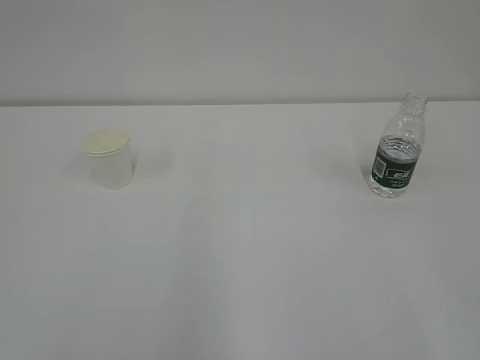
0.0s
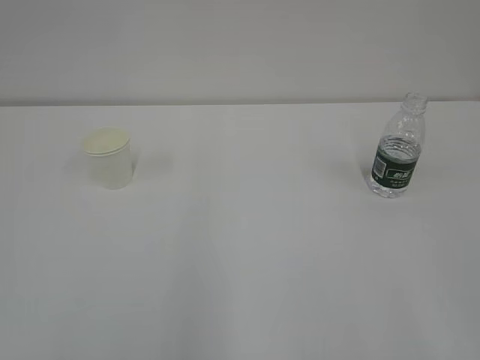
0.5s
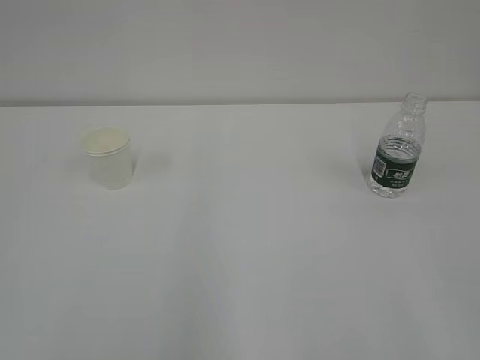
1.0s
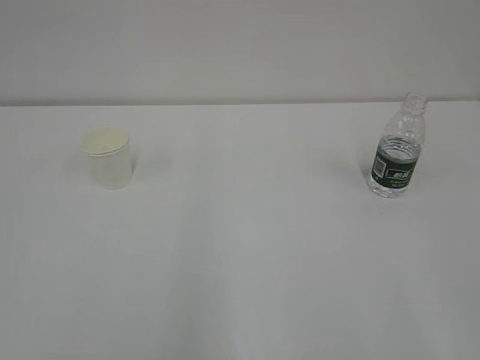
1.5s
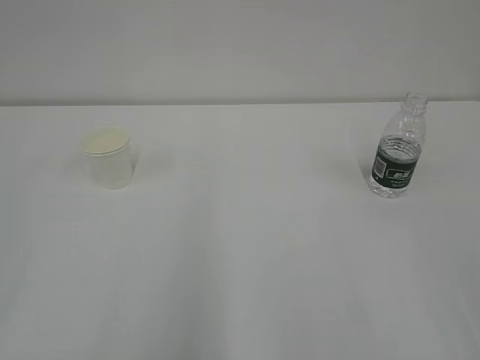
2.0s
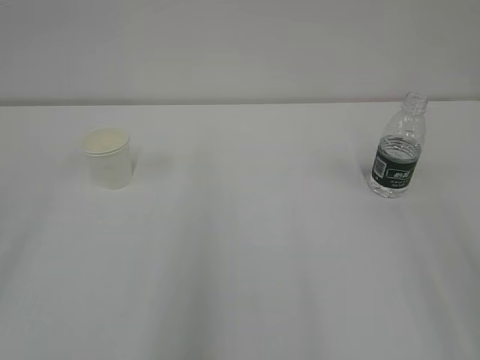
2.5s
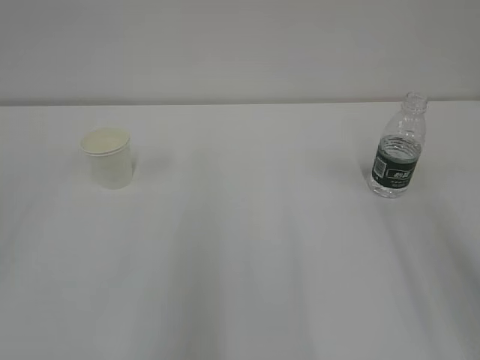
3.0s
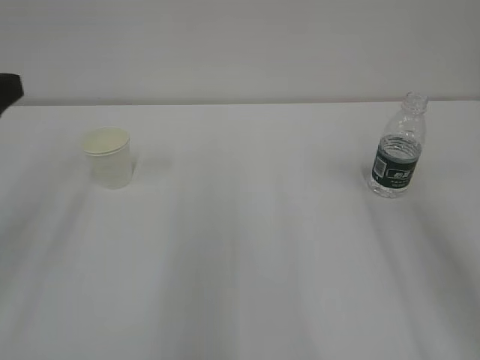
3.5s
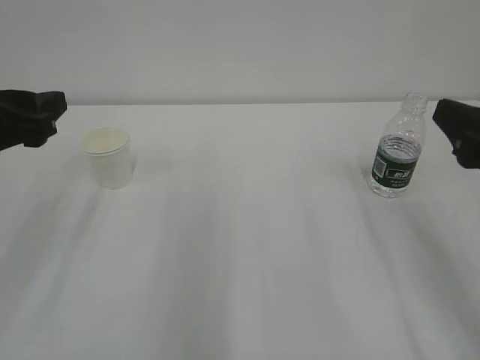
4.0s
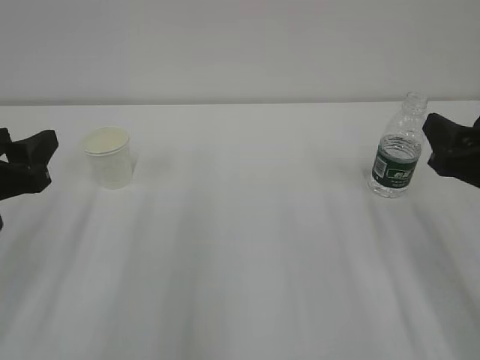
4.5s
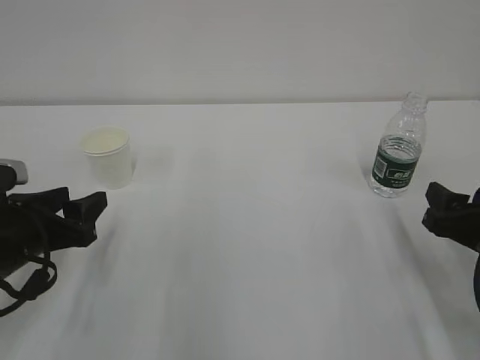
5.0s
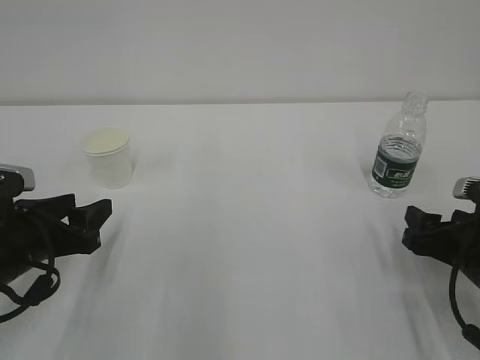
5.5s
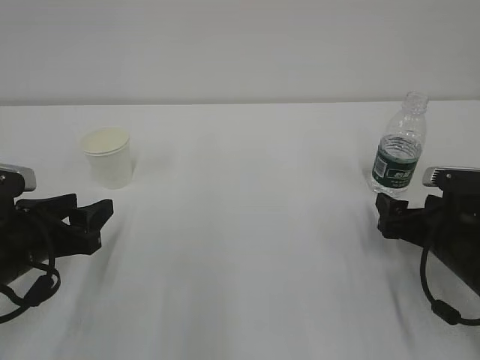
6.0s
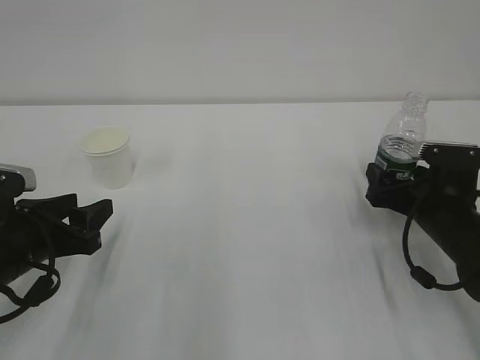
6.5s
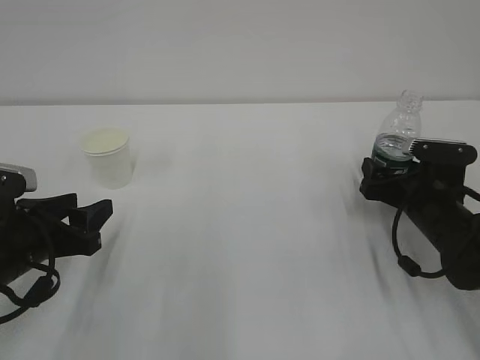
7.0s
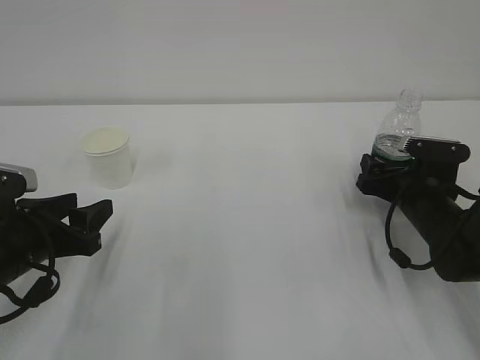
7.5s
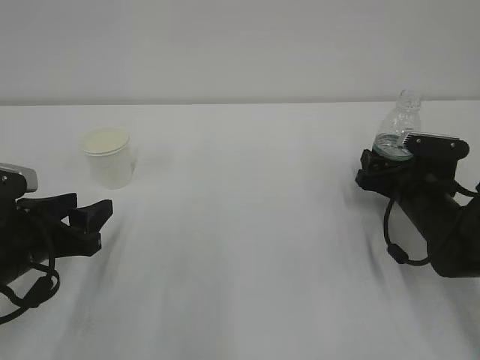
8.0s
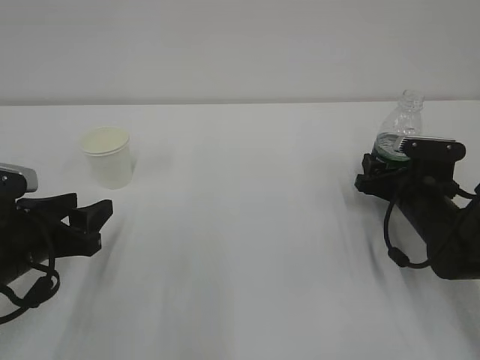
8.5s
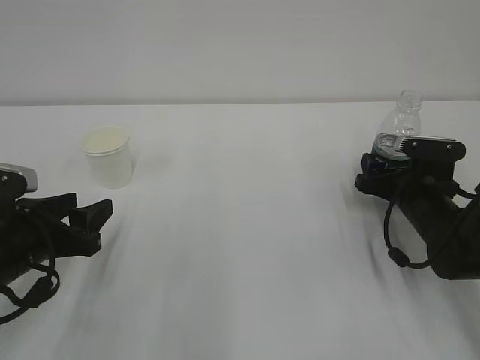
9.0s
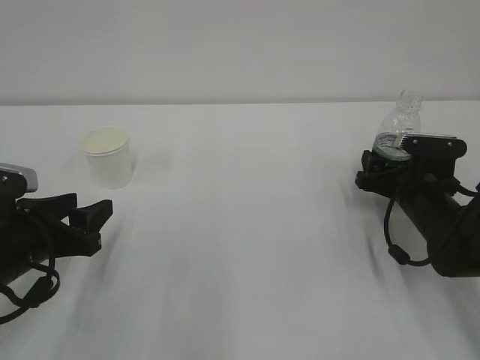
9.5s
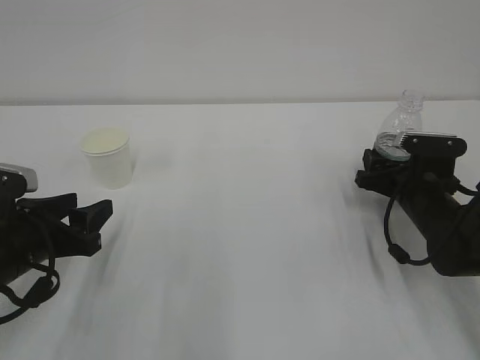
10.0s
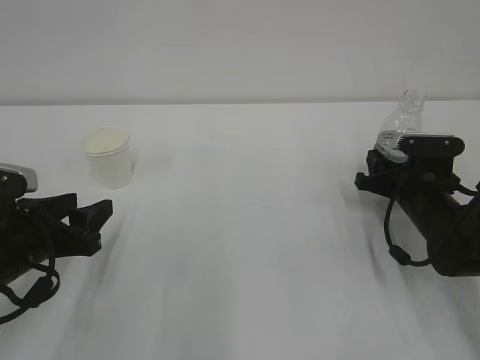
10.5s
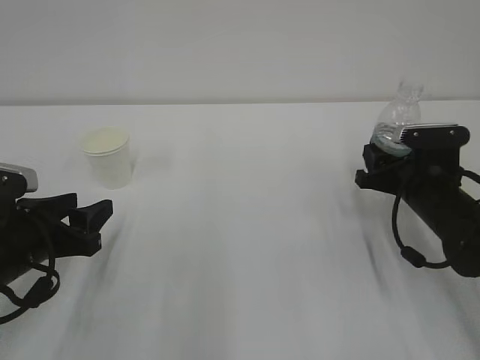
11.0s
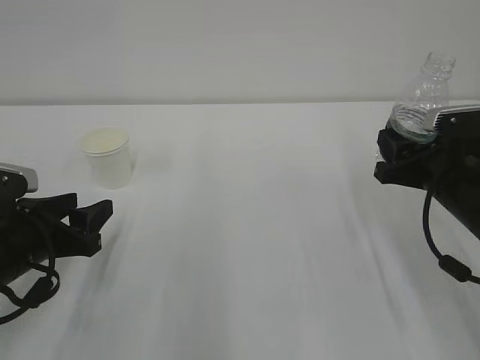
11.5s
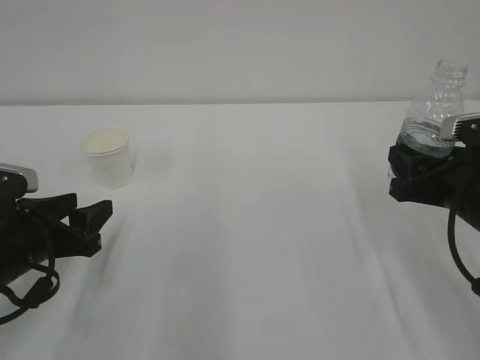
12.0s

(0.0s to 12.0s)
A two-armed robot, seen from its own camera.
2.0s - 4.0s: Both grippers travel together forward, roughly 20 cm. The left gripper opens its fingers.
4.0s - 6.0s: The right gripper heads downward and forward, covering approximately 20 cm, and opens its fingers; the left gripper shifts about 15 cm downward.
6.0s - 8.0s: The right gripper goes approximately 10 cm forward.
10.0s - 12.0s: The right gripper is displaced backward and upward by some 15 cm, and closes up.

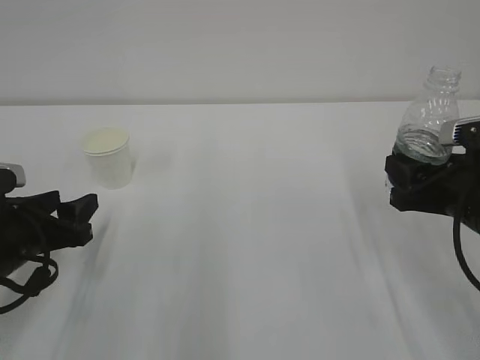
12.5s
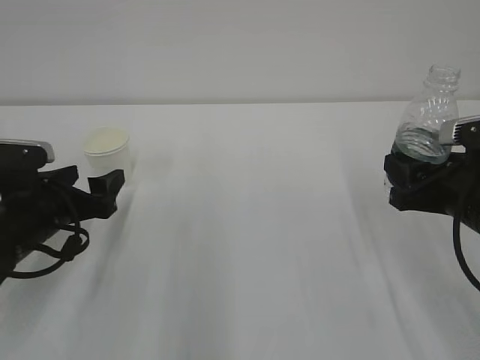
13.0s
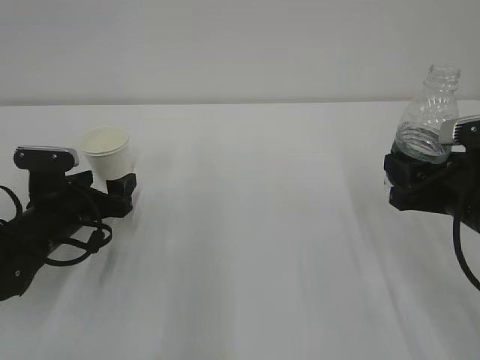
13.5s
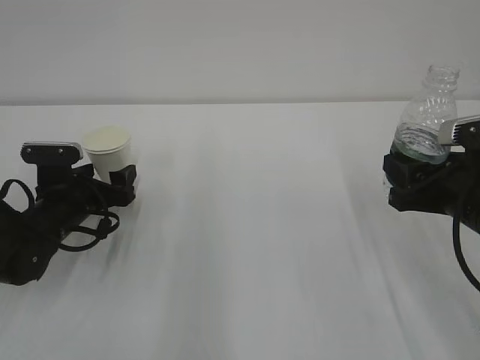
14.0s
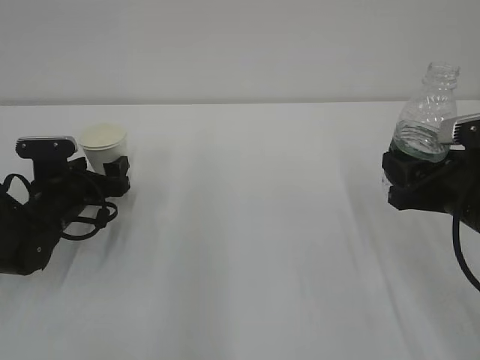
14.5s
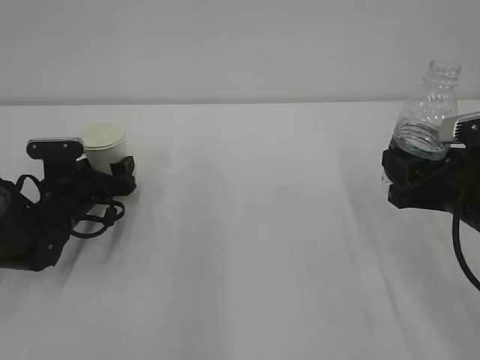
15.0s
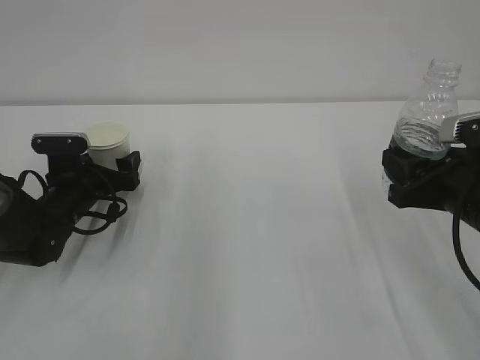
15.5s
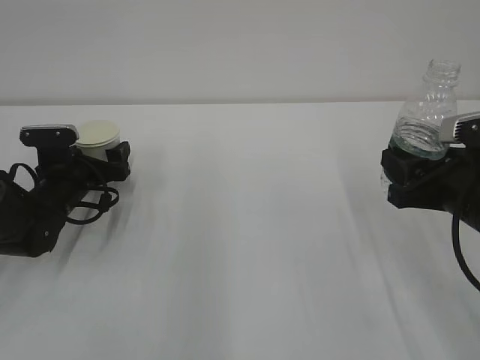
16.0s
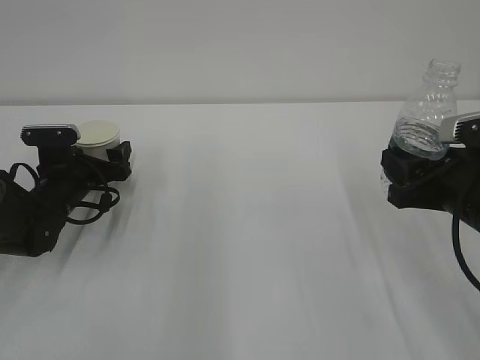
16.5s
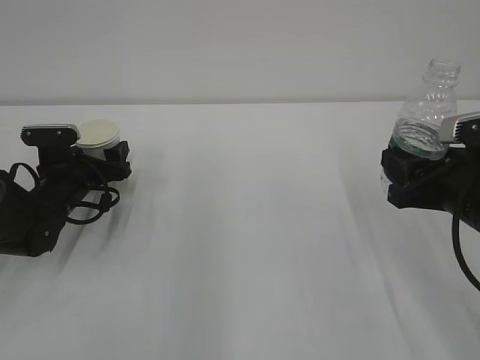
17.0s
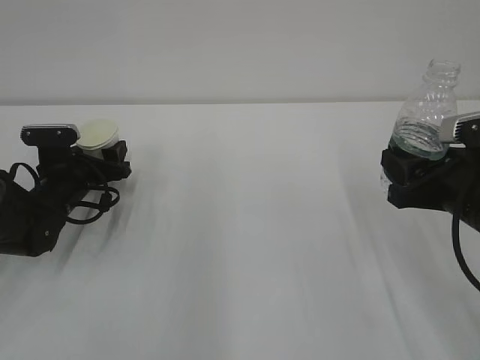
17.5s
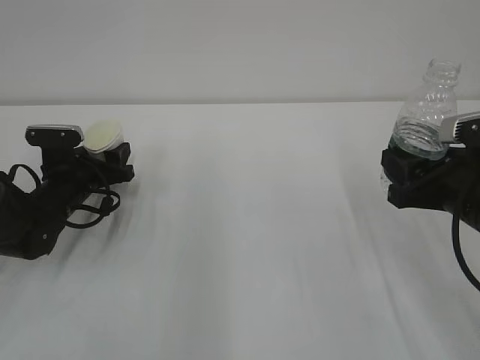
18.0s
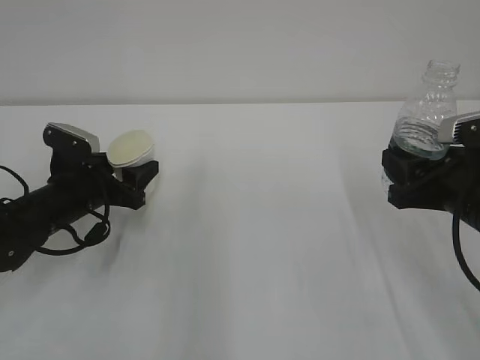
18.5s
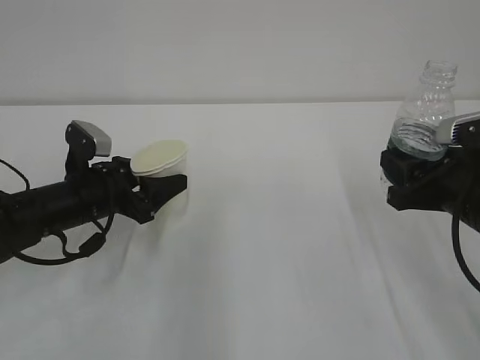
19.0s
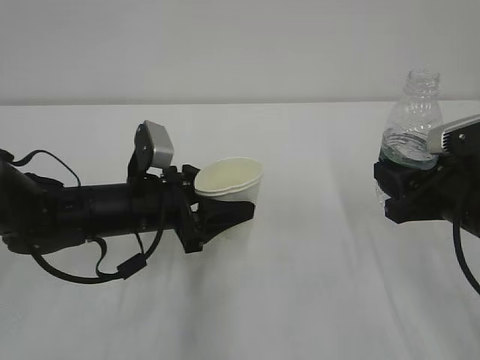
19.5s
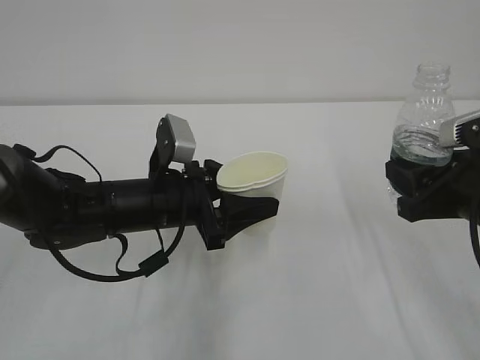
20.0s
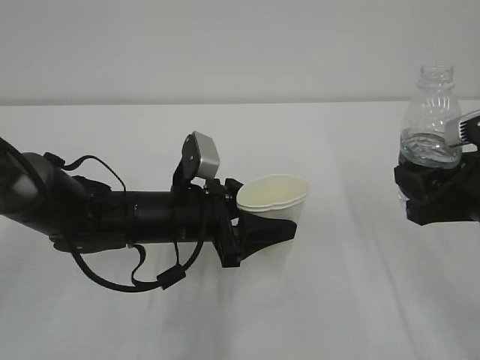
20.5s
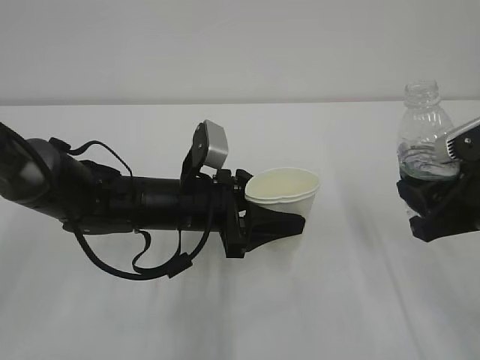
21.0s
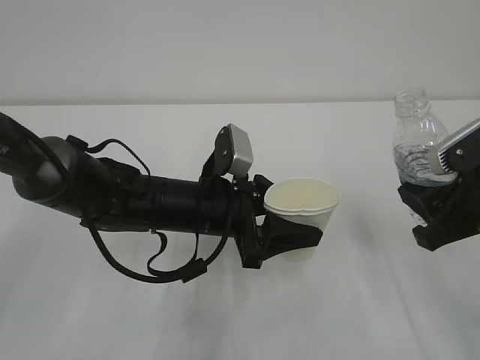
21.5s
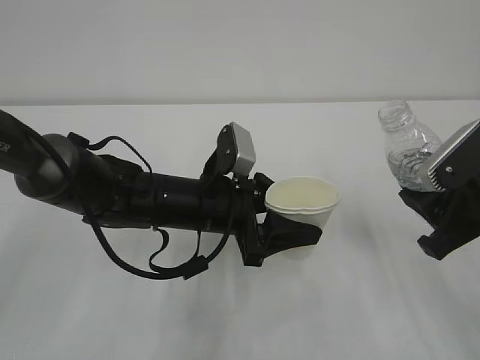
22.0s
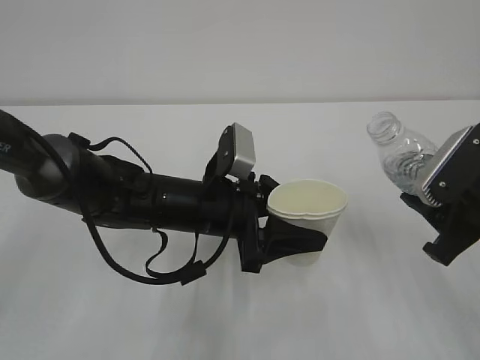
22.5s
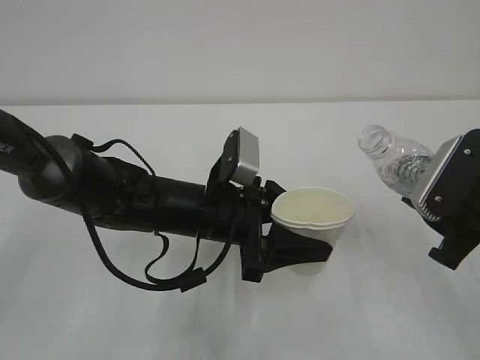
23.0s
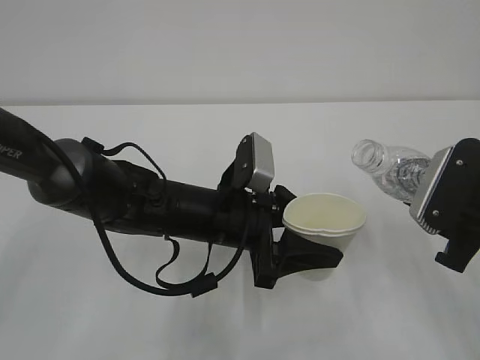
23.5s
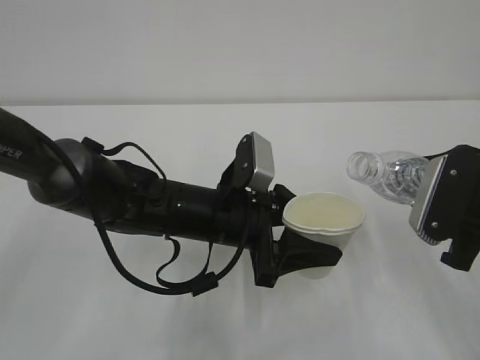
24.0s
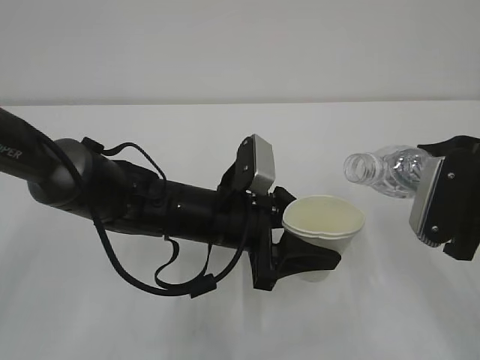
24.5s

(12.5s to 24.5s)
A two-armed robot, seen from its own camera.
12.5s - 14.5s: The left gripper is displaced forward and downward by some 15 cm, and opens up.
14.5s - 16.5s: The grippers move only a little.
16.5s - 18.5s: The left gripper shifts by some 5 cm, and closes.
18.5s - 20.5s: The left gripper travels to the right by roughly 15 cm.

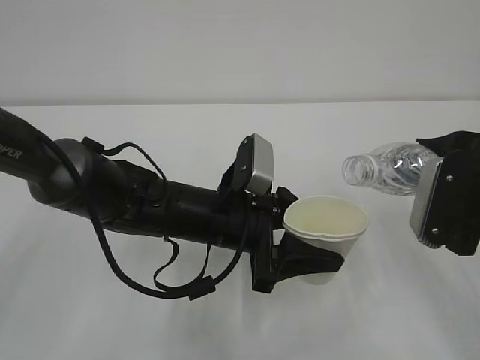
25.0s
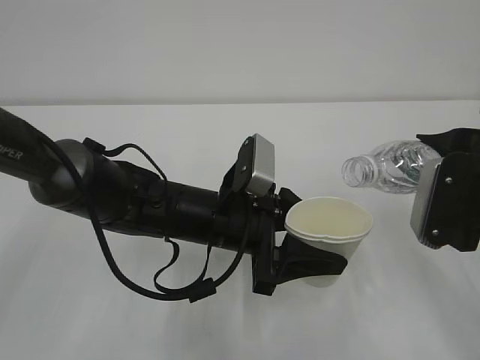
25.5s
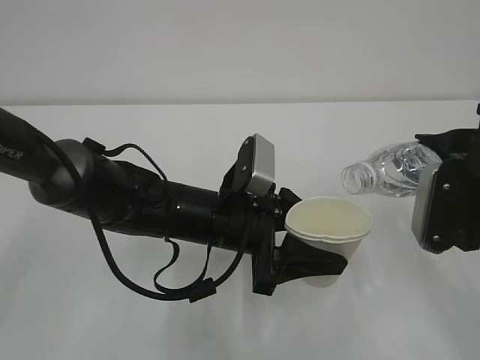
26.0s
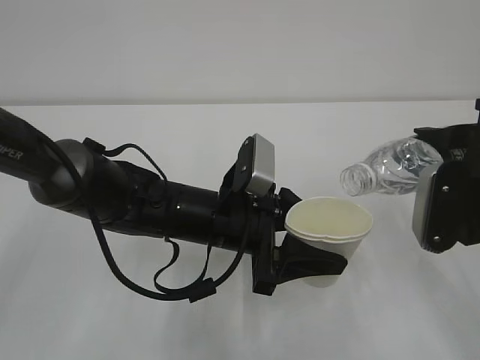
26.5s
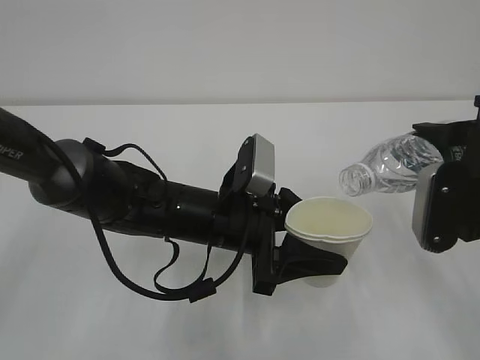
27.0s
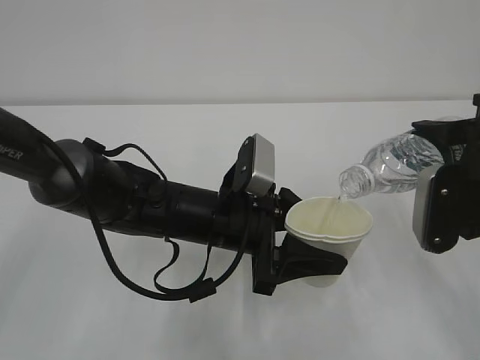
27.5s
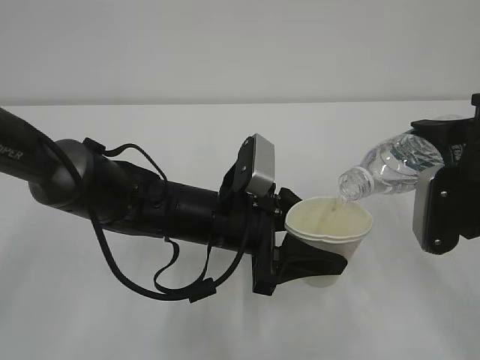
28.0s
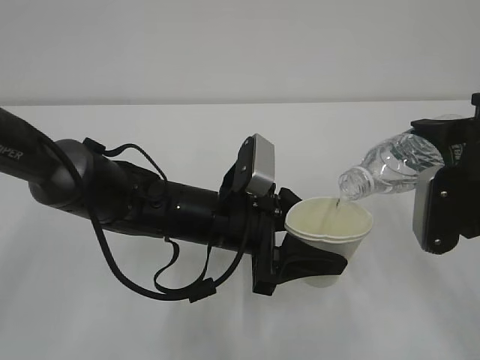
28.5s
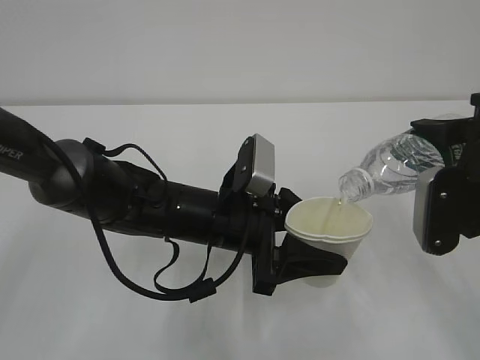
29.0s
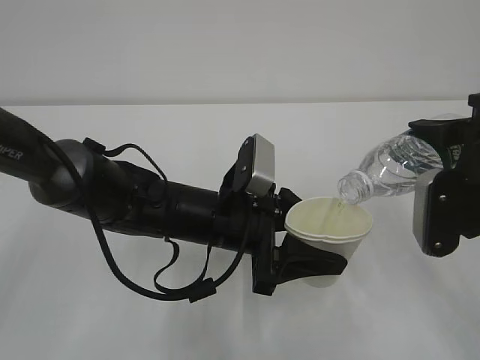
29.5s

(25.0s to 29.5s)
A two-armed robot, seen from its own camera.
25.0s - 29.5s: The grippers stay close to where they were, moving slightly.
